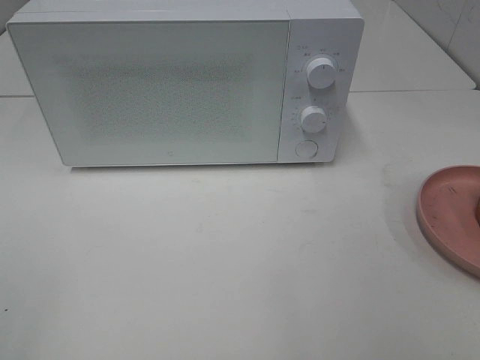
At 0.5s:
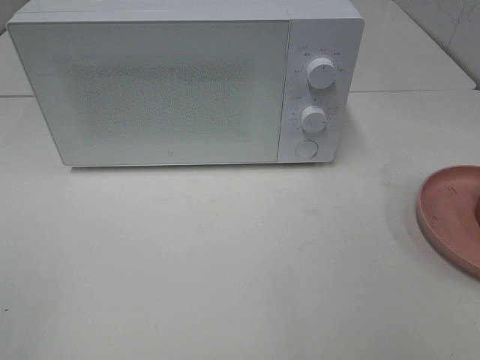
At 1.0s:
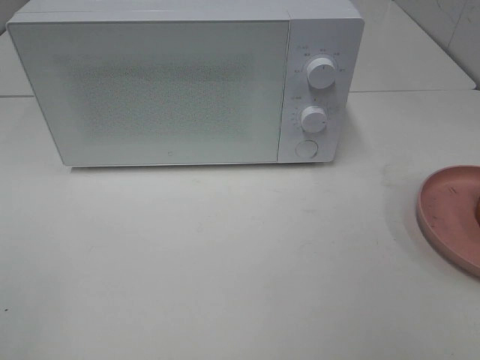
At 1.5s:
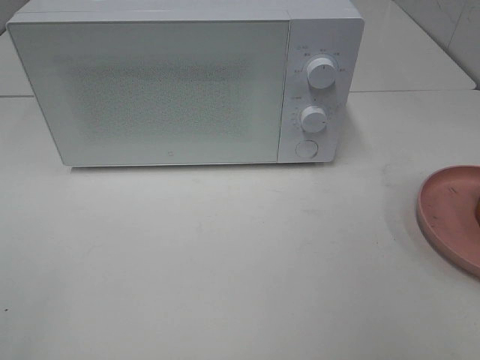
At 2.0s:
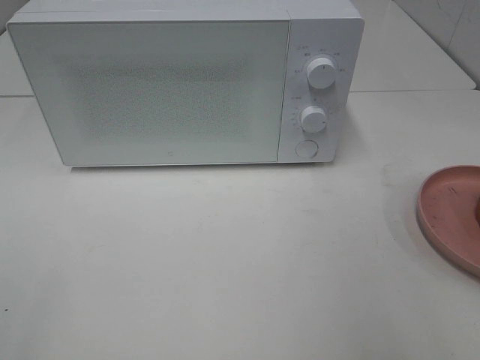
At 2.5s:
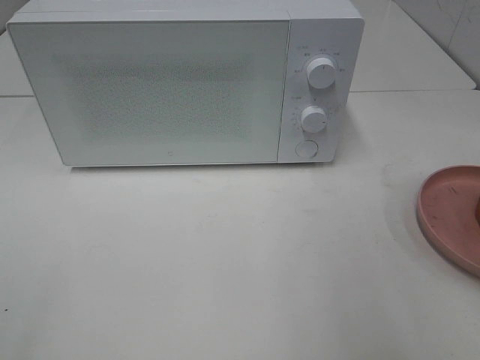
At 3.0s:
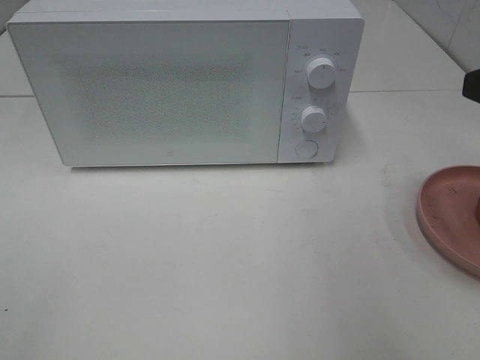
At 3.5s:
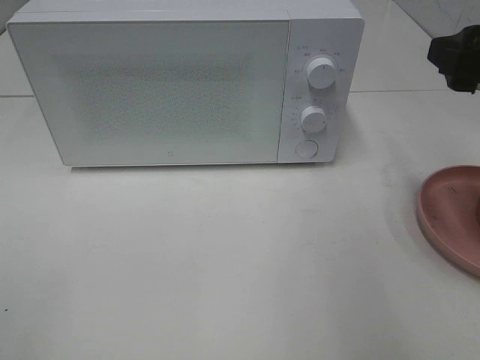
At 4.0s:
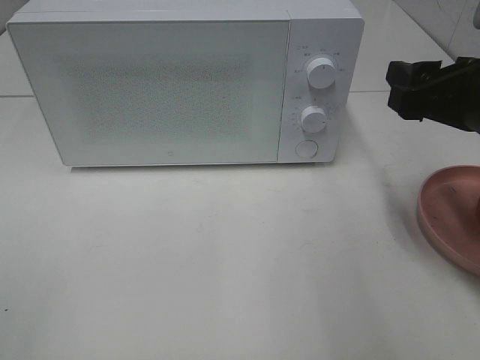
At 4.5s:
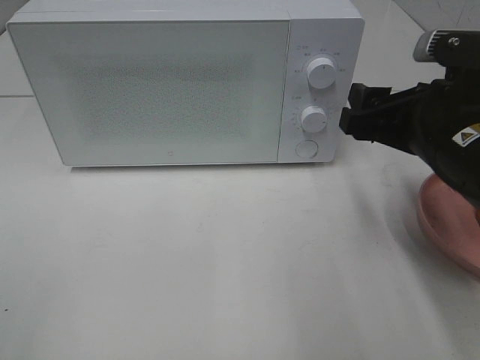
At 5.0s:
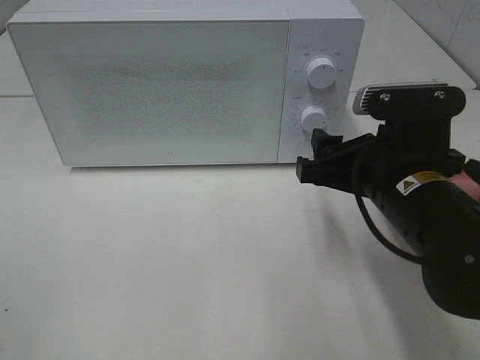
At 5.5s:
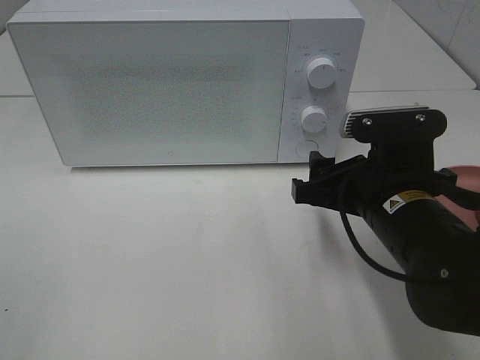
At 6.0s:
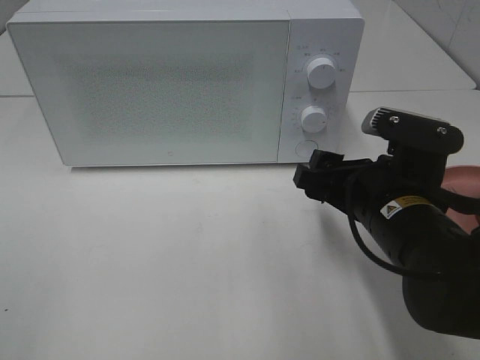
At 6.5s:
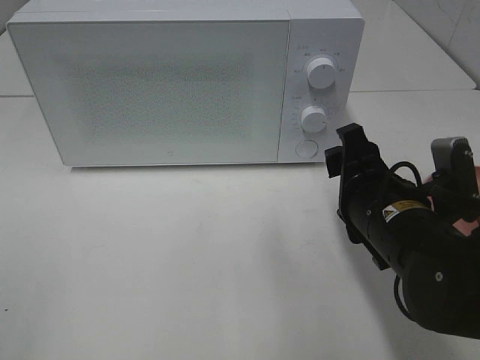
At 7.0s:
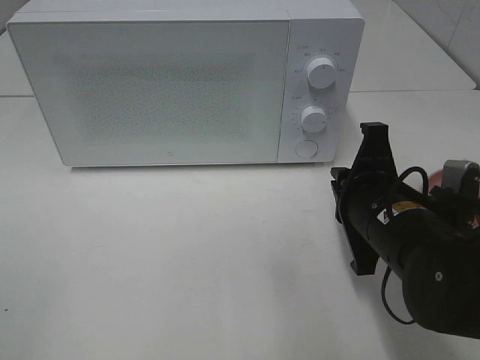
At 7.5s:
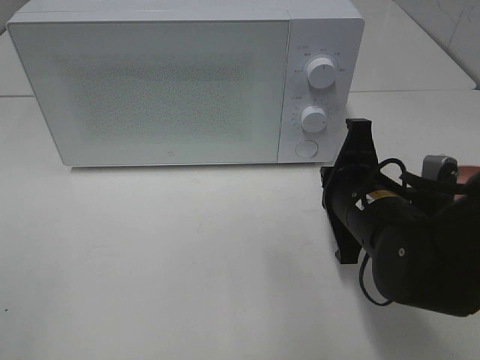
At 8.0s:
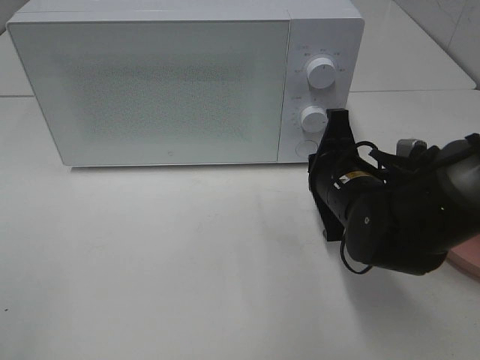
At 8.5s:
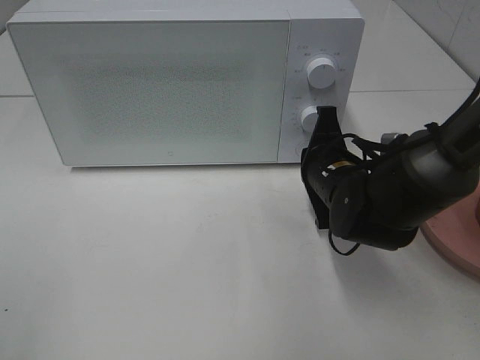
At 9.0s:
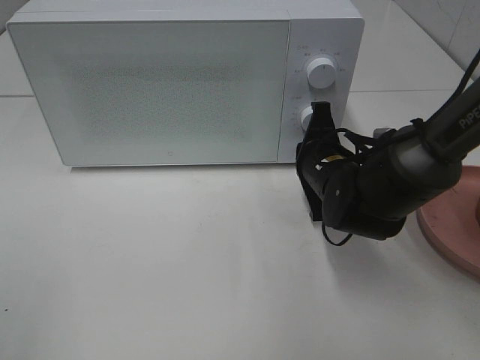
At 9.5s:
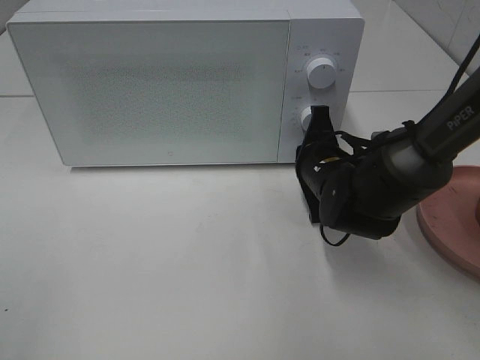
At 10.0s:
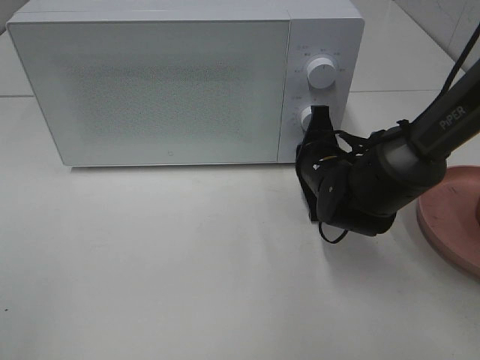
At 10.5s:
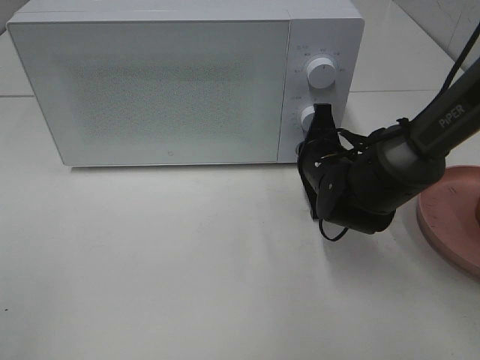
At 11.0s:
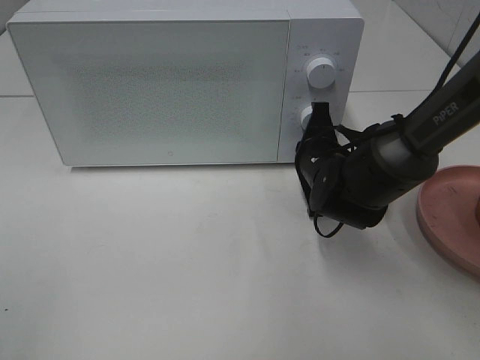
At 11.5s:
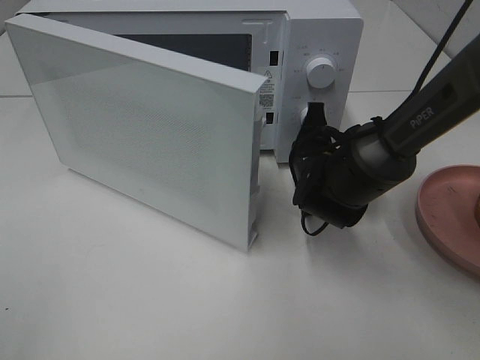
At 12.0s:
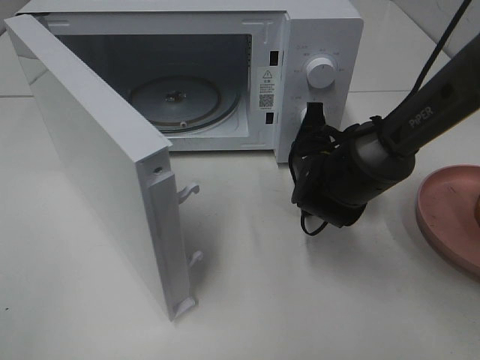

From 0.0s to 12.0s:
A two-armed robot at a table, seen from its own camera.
Task of the whole recording: Heat the burger.
From 2.0s to 4.0s: The right gripper heads forward and downward, covering some 15 cm.
From 4.0s to 6.0s: The right gripper heads downward and to the left, covering roughly 15 cm.
From 6.0s to 8.0s: The right gripper heads forward, covering about 5 cm, and closes up.
From 8.0s to 10.0s: The right gripper travels forward by some 5 cm.

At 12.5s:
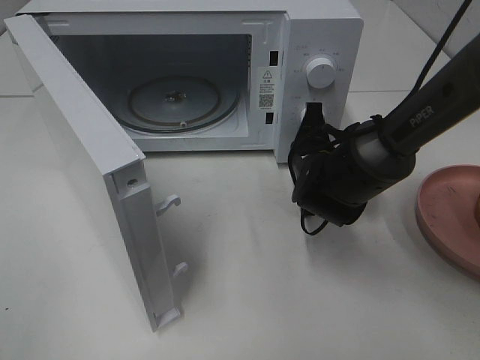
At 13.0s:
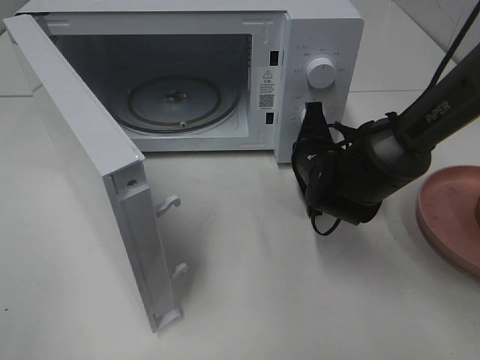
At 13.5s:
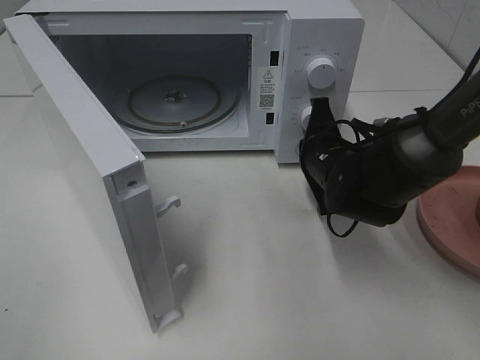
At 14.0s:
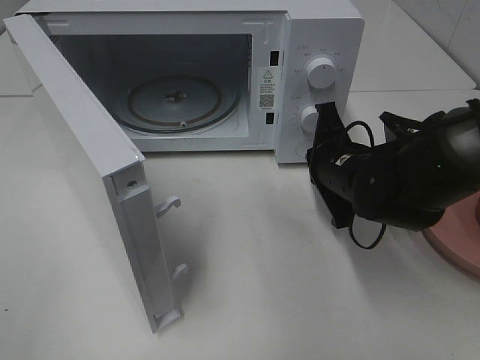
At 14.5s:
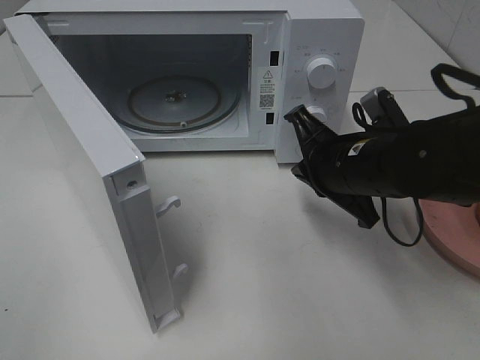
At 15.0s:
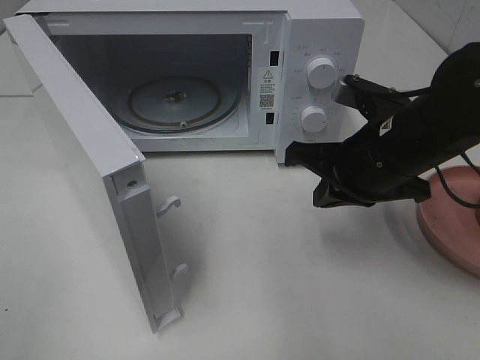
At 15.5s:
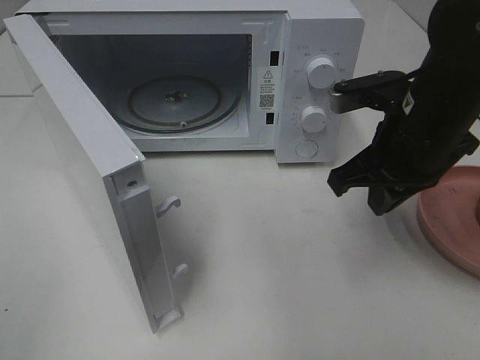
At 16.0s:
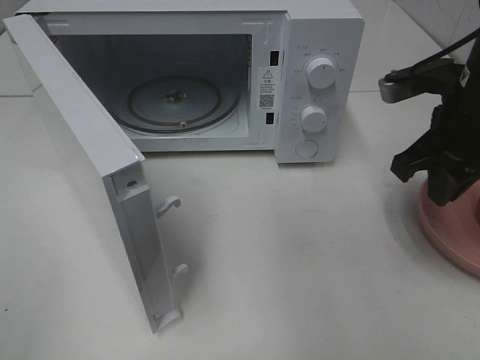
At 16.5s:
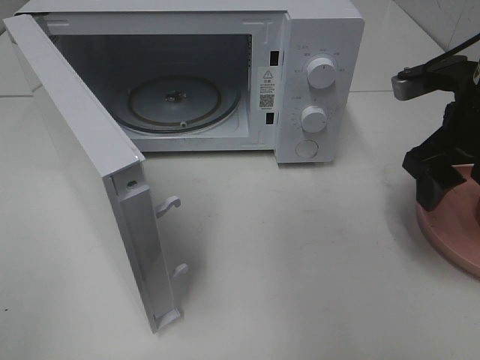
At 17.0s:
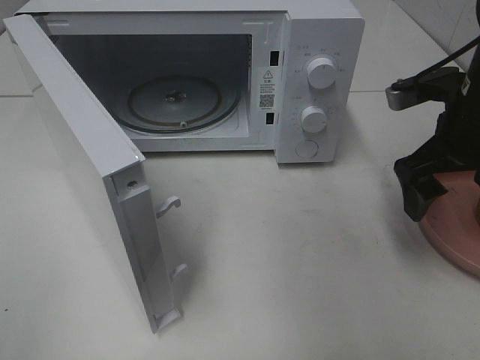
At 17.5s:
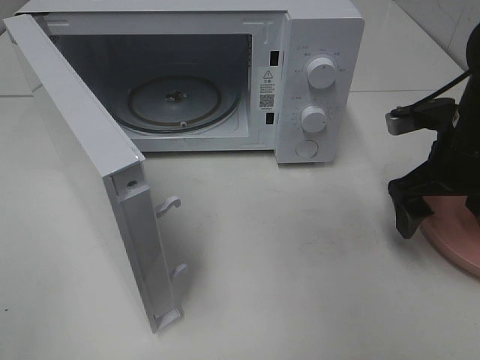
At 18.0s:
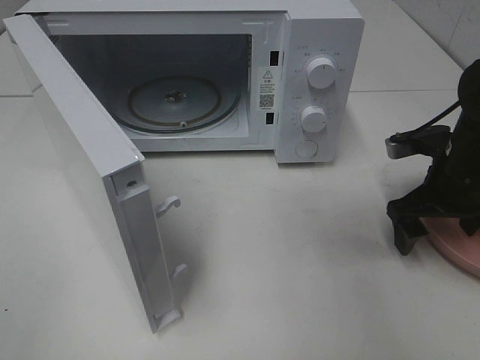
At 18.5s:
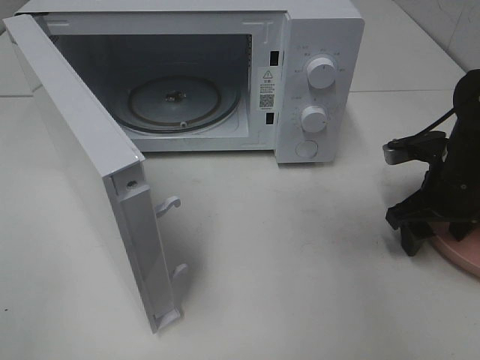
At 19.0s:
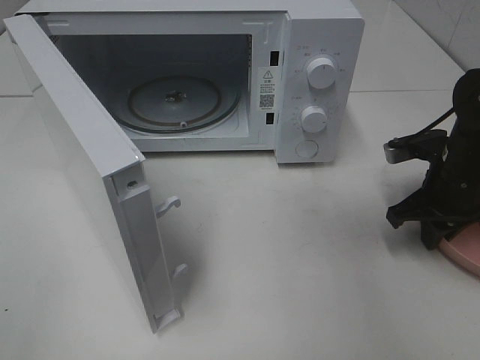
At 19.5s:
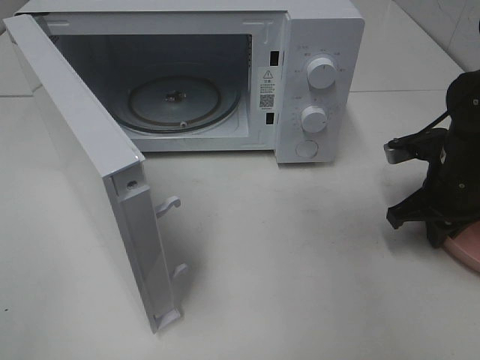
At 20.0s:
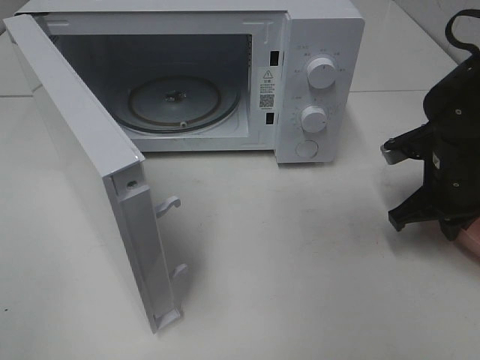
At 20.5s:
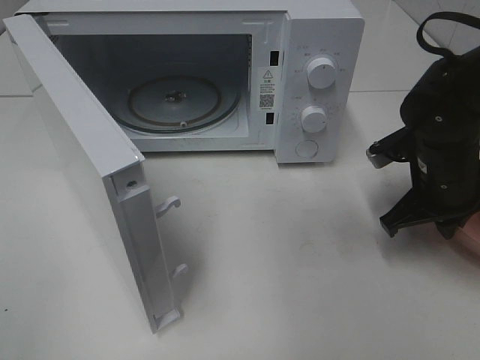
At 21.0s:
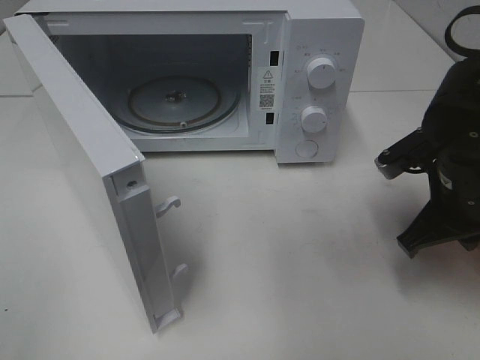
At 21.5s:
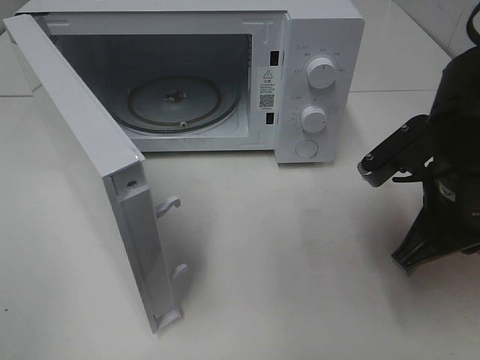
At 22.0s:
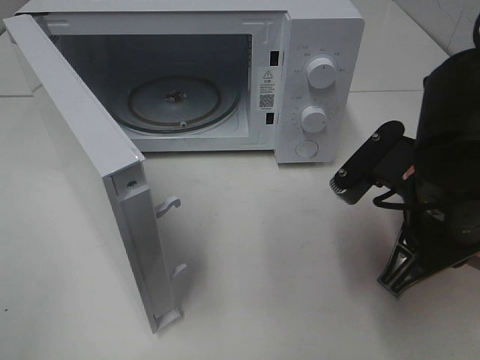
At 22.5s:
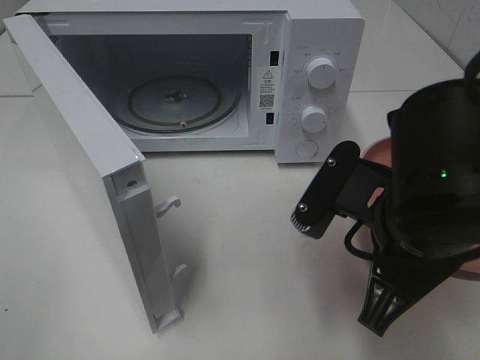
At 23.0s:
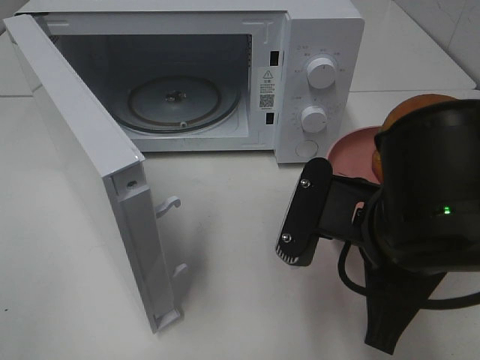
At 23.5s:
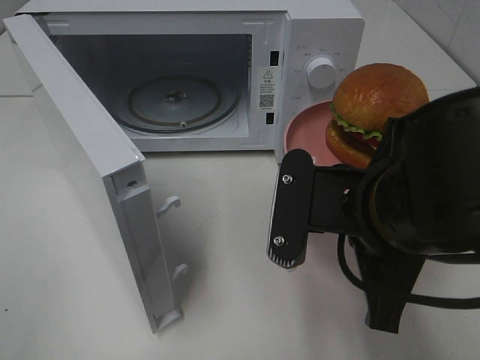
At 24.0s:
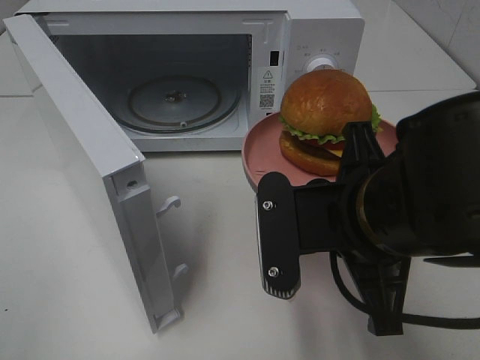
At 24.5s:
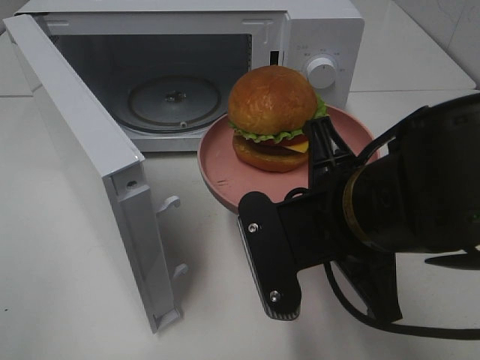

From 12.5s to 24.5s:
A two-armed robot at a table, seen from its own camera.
Task of the whole recording: Heat the burger.
Step, from 14.5s to 20.0s: Right hand: grab the plate with the hamburger.
From 12.5s to 14.5s: The right gripper shifts roughly 10 cm backward and upward.
From 14.5s to 16.5s: The right gripper moves to the right and upward, about 15 cm, and opens up.
From 16.5s to 18.5s: The right gripper moves downward, about 10 cm.
From 18.5s to 20.5s: The right gripper closes its fingers.
From 20.5s to 22.5s: The right gripper travels backward, to the left and upward by approximately 20 cm.

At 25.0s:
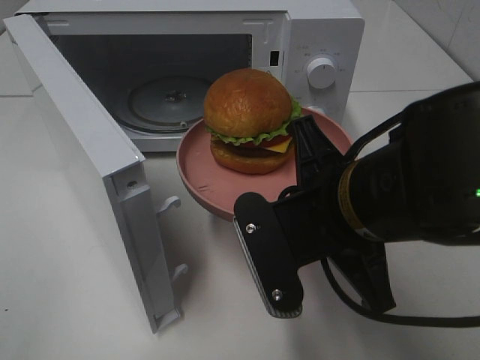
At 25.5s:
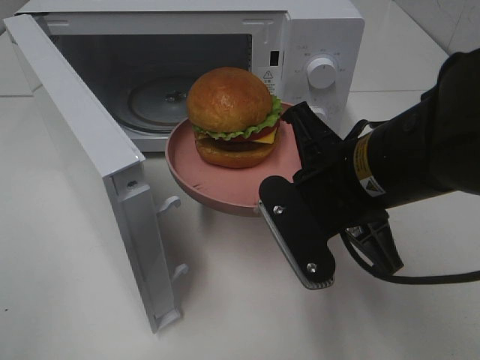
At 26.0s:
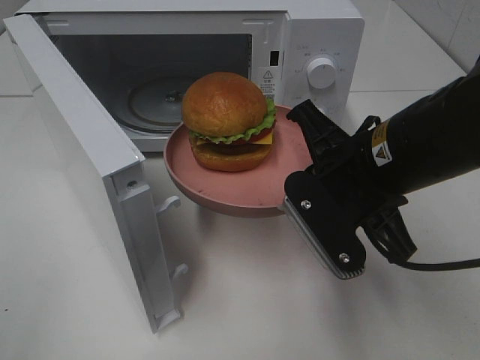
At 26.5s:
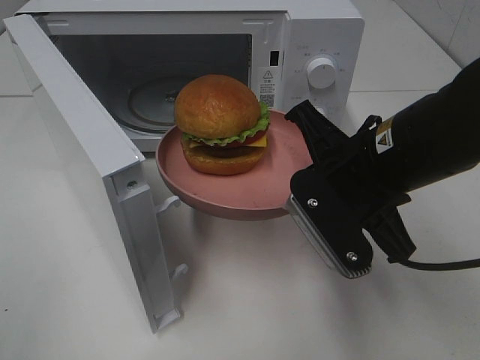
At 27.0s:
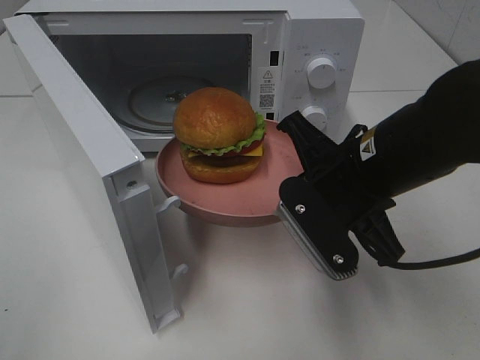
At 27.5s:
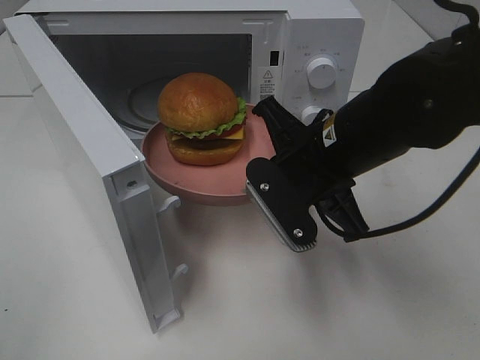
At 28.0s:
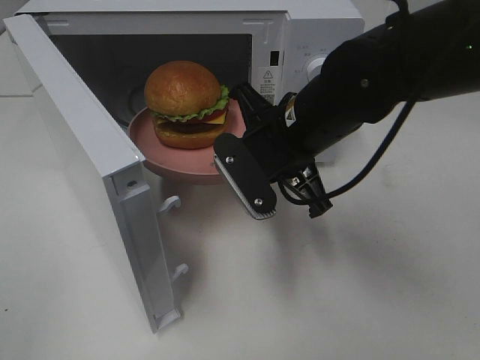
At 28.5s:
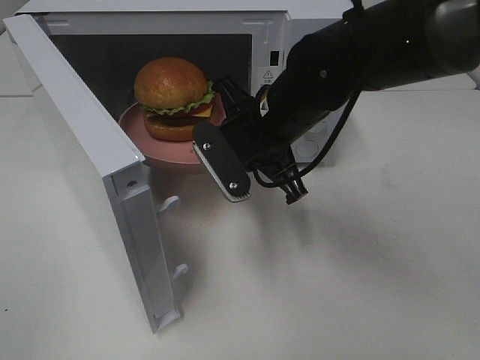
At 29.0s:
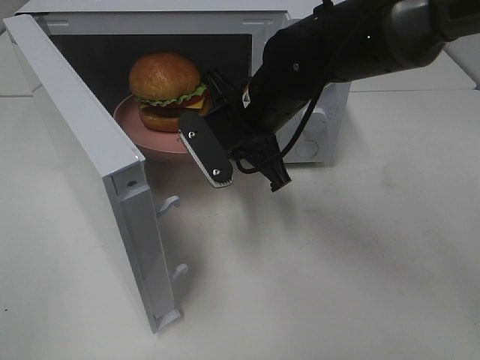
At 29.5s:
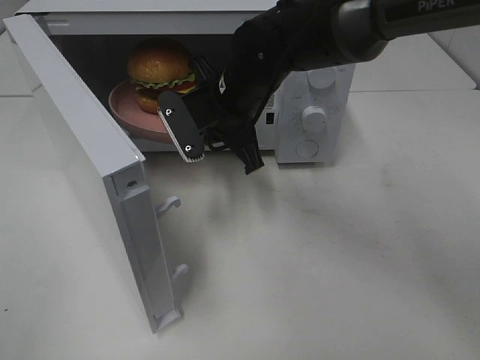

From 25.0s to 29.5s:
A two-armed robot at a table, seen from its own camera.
Task of the whole recording: Heat the burger.
From 25.0s to 27.0s: The right gripper heads forward, covering roughly 5 cm.
From 27.0s to 29.5s: The right gripper shifts about 20 cm forward and to the left.
